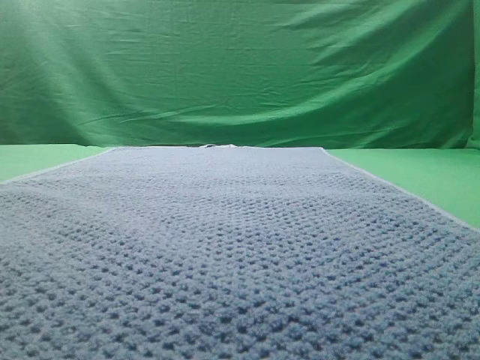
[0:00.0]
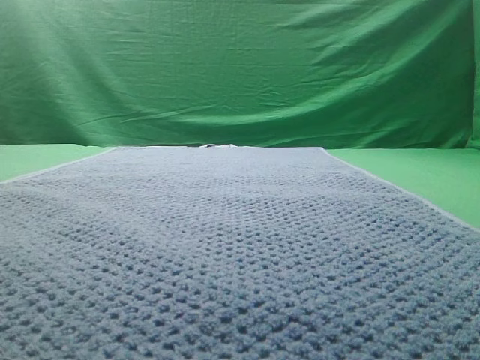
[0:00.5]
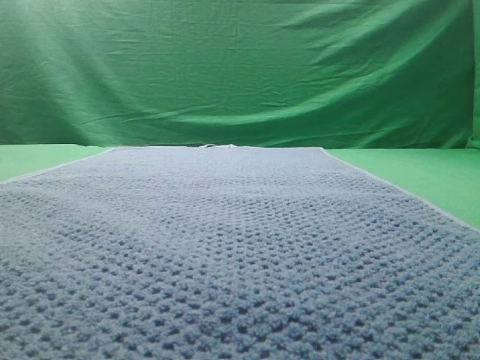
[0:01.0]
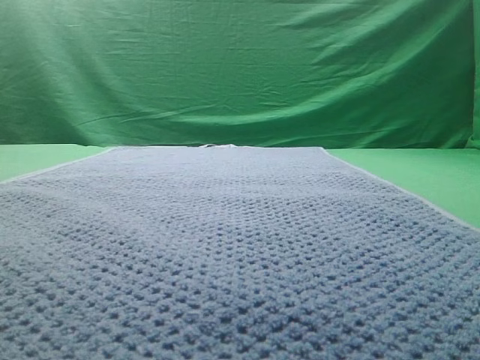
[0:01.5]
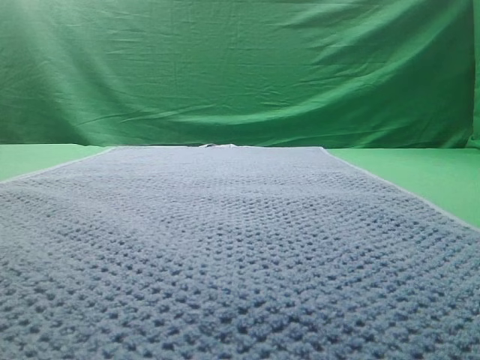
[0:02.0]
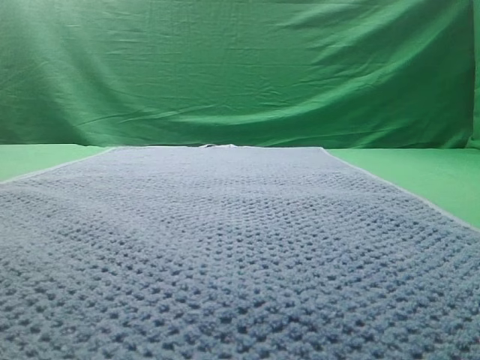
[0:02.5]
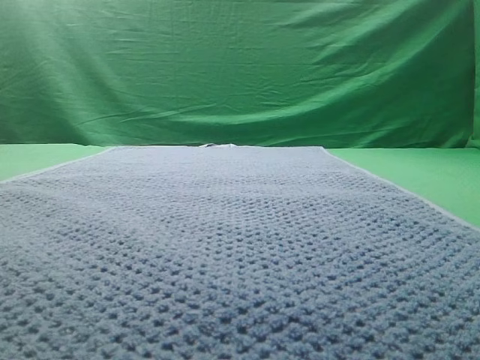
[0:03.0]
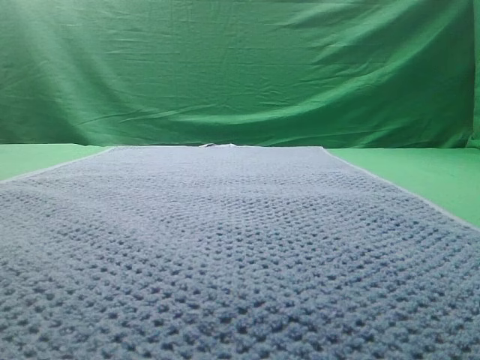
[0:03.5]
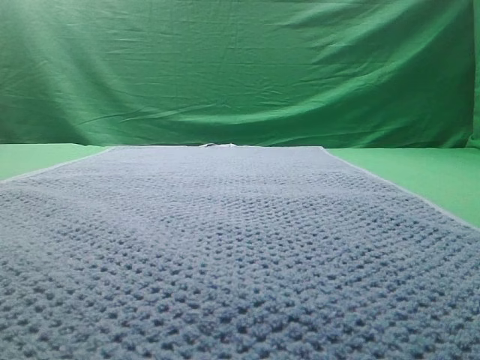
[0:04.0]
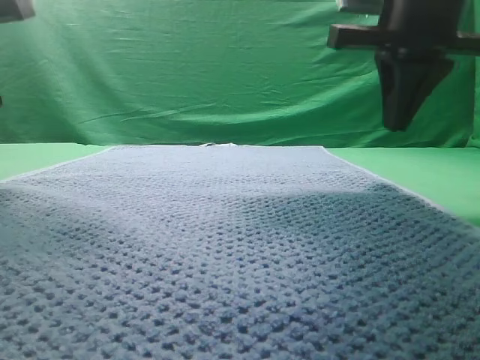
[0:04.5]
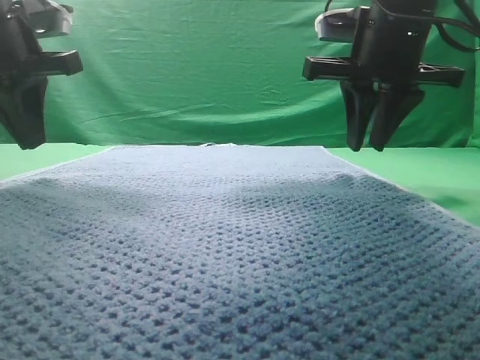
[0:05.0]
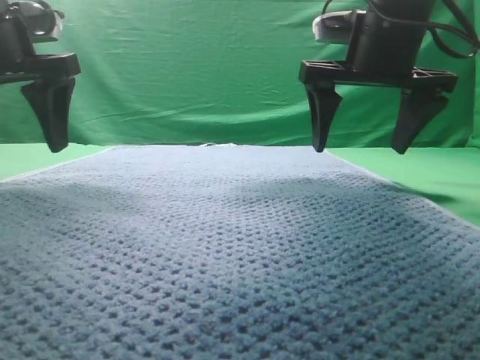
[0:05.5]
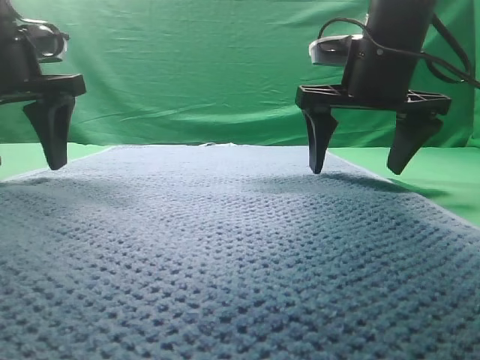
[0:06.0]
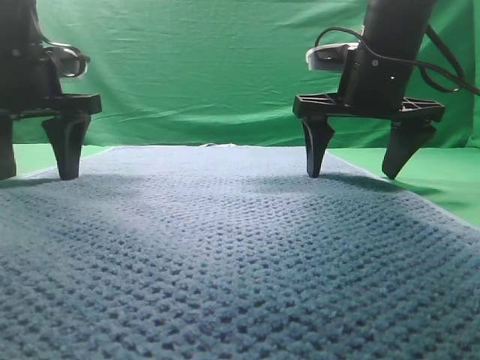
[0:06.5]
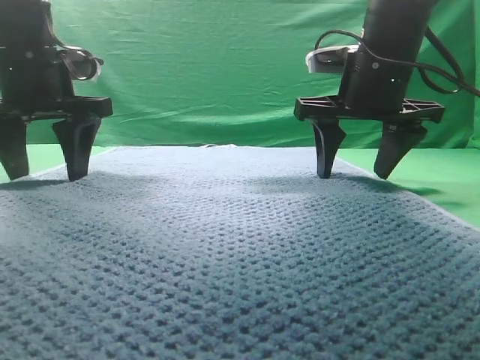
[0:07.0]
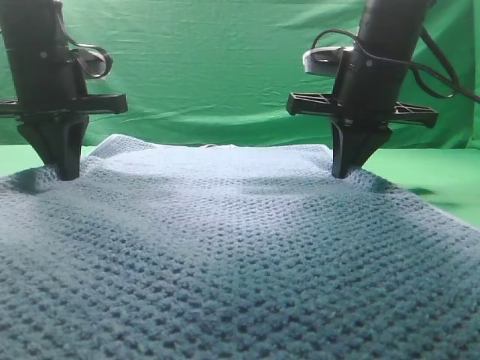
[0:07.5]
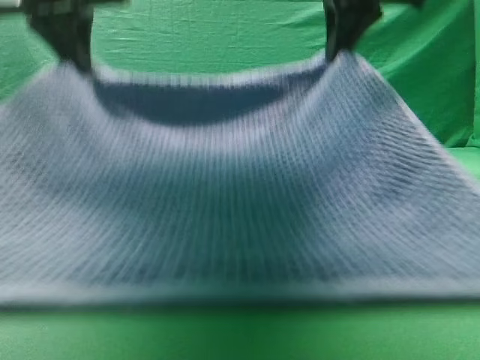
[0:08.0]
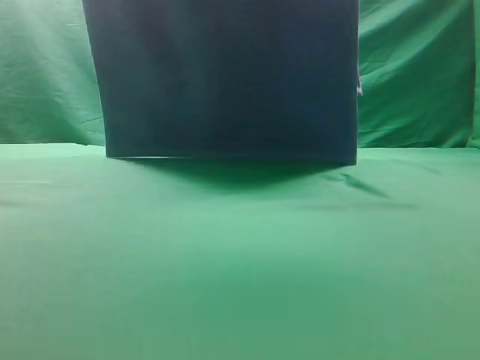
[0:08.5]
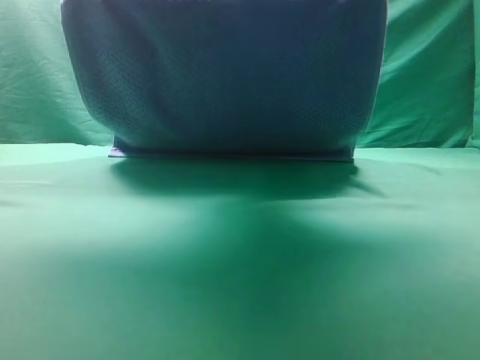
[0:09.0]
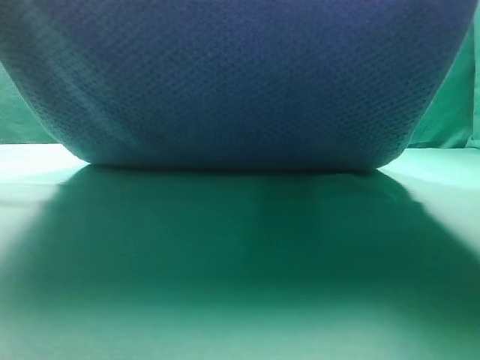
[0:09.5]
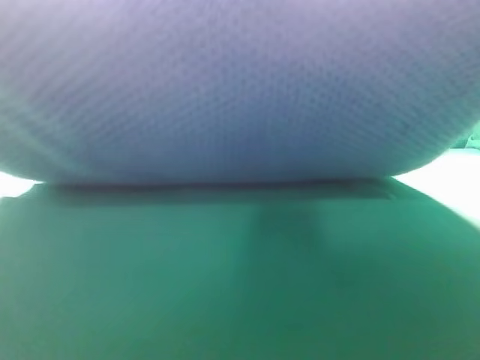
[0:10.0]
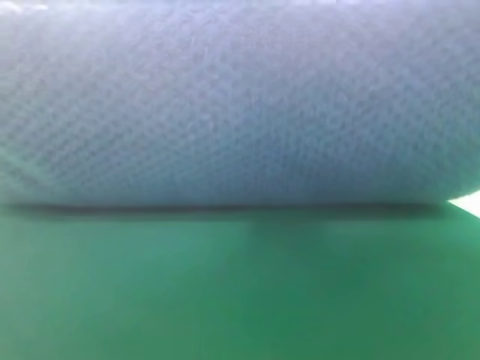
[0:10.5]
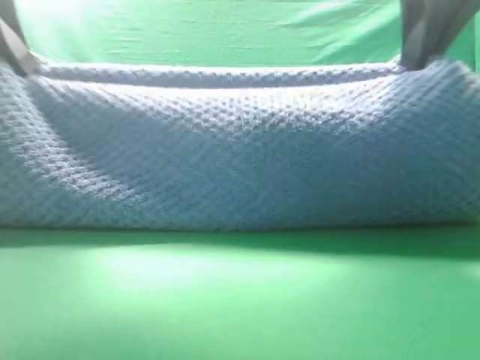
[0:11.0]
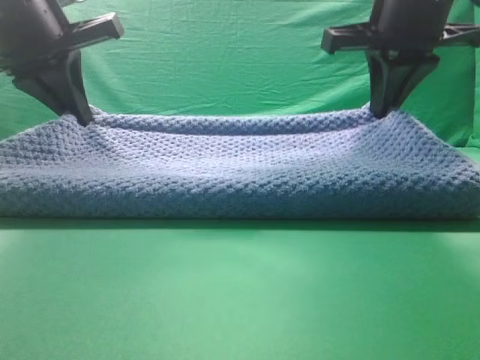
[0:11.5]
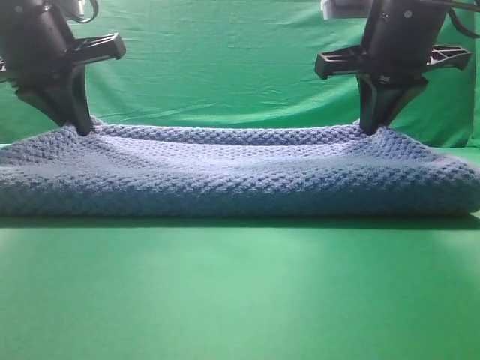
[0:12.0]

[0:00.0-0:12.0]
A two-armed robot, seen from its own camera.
Task of the whole recording: fold the towel on the table twice.
Step, 0:00.0 to 0:08.0: pick up the towel with two arm.

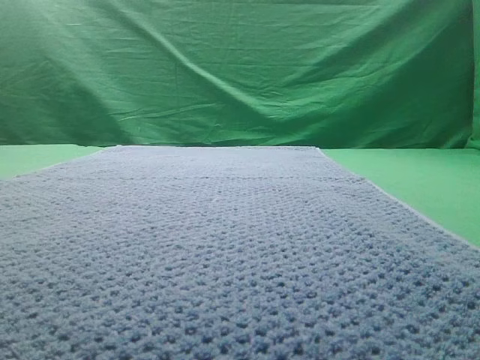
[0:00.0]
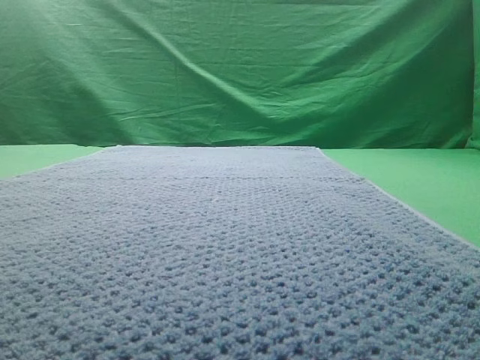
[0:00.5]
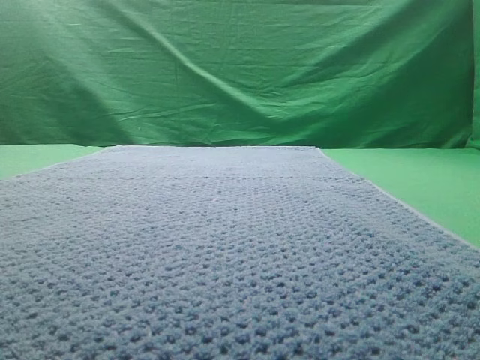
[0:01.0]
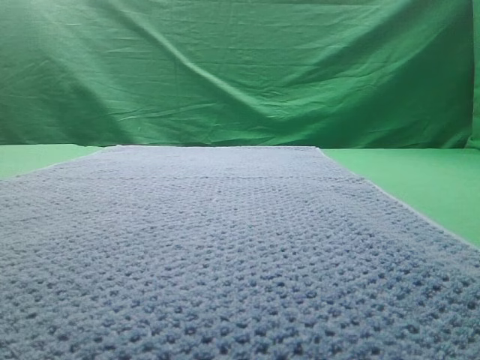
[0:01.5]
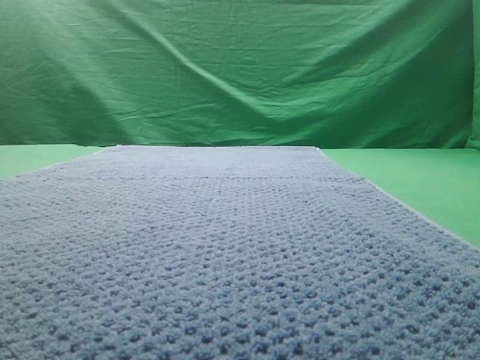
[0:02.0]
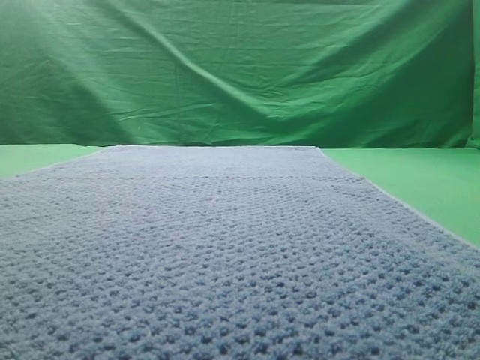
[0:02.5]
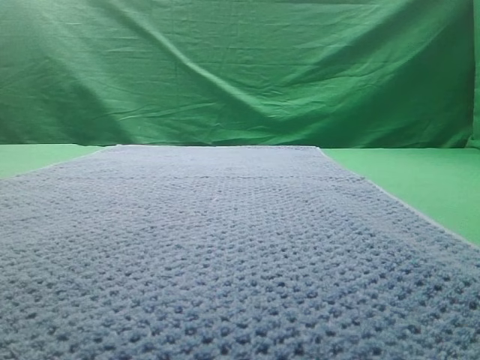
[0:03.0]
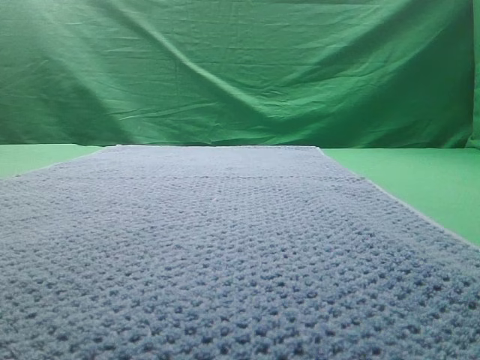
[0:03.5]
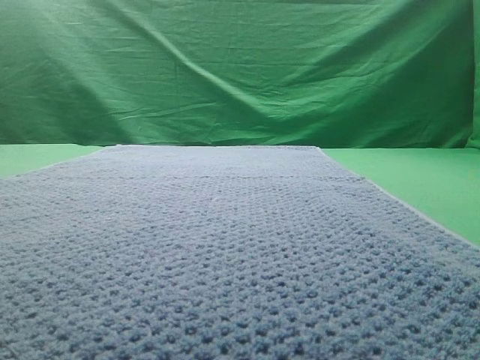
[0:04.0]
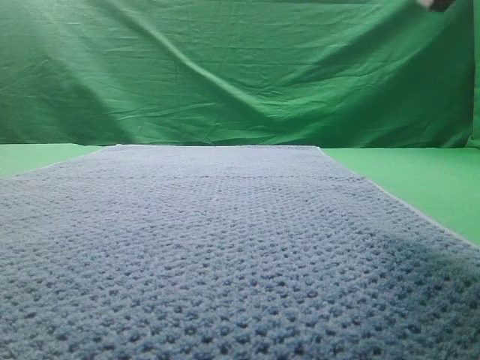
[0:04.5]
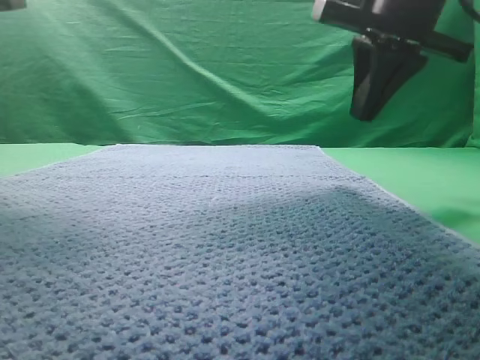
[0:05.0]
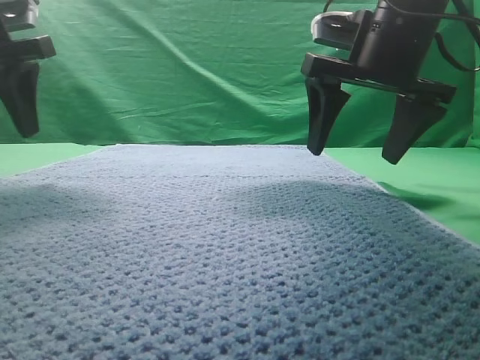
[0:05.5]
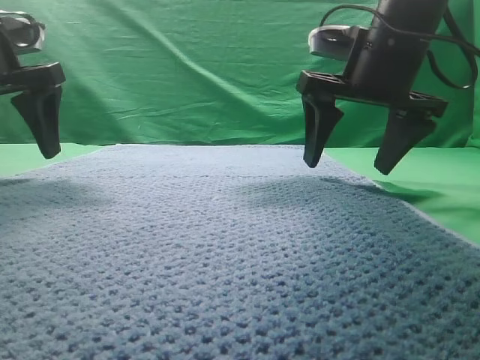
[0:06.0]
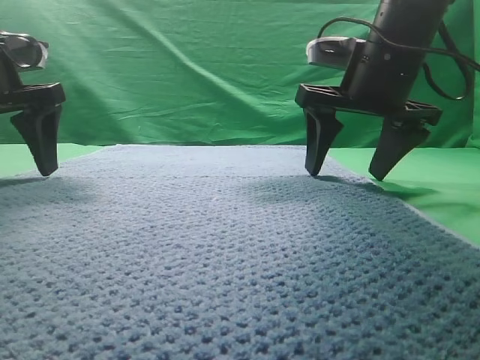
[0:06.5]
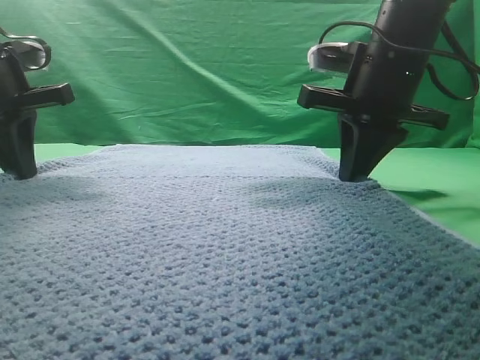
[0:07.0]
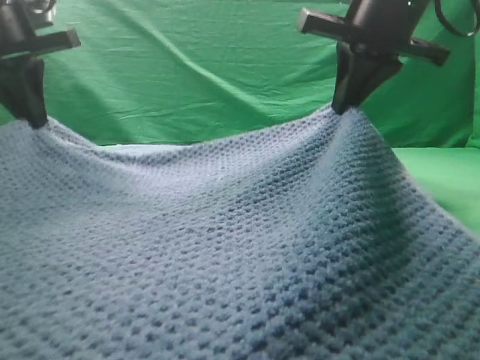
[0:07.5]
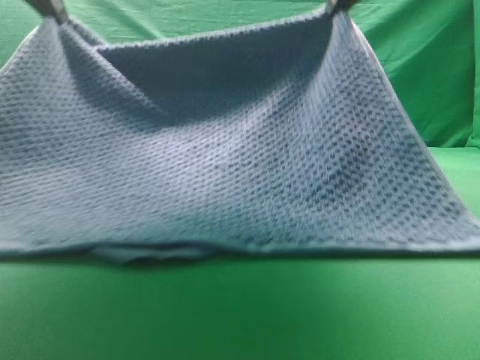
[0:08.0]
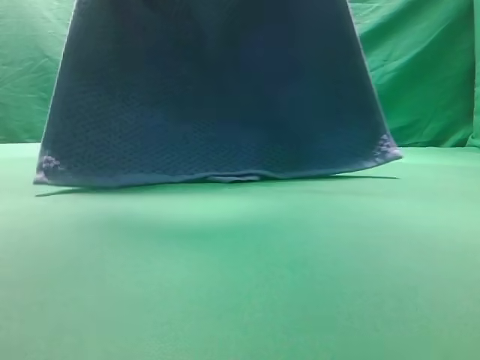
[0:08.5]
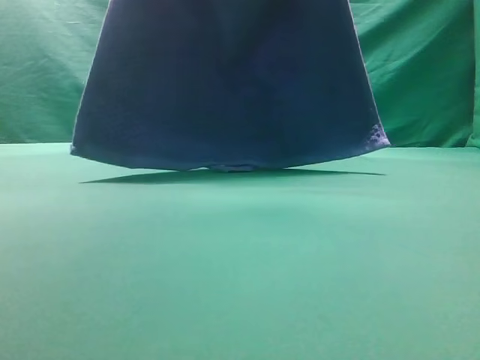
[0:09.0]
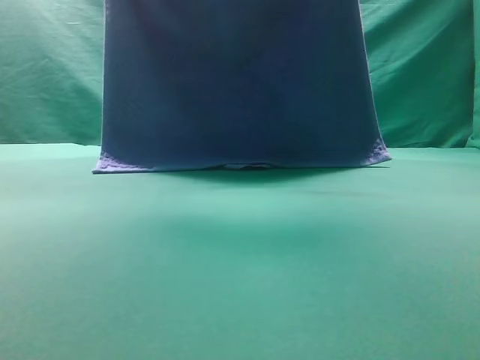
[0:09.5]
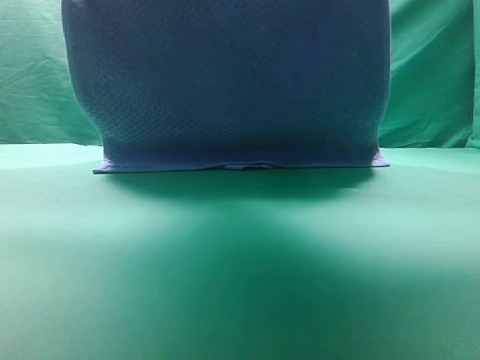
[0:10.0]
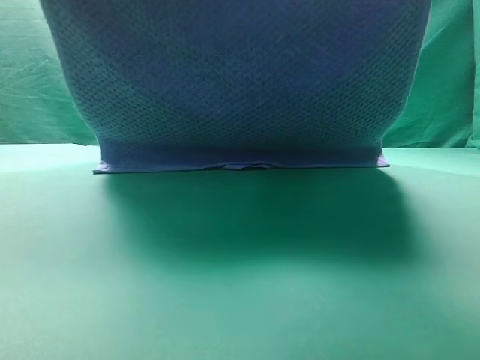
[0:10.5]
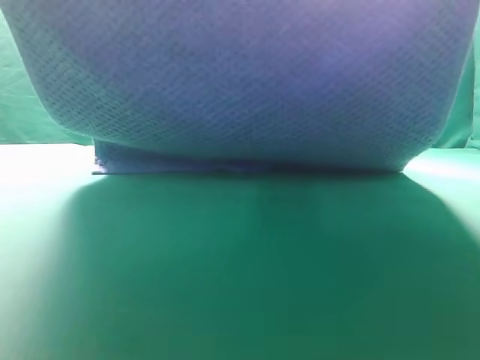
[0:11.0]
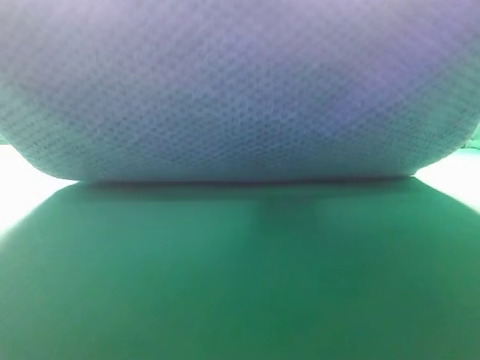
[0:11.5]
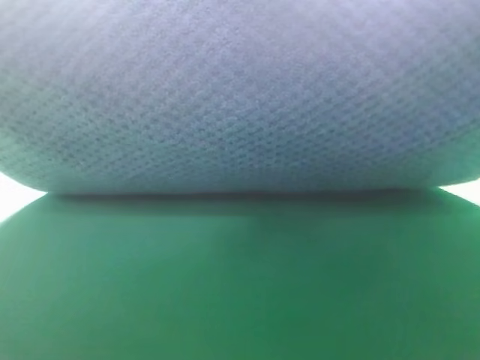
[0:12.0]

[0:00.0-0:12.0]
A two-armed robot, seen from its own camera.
Task of the whole recording: fold the towel on the table twice.
Step, 0:00.0 to 0:08.5: pick up the towel with two arm.

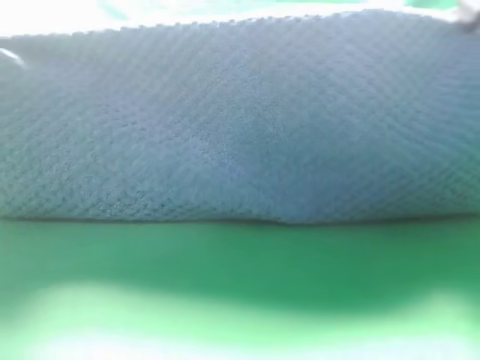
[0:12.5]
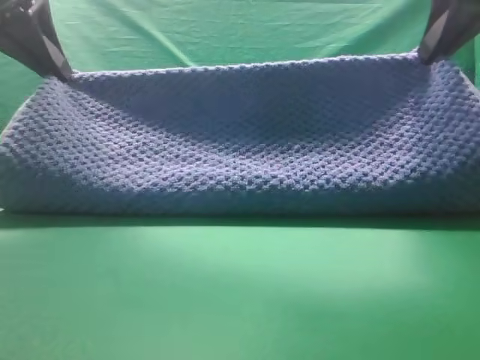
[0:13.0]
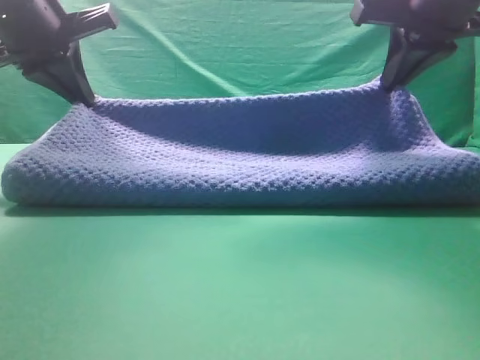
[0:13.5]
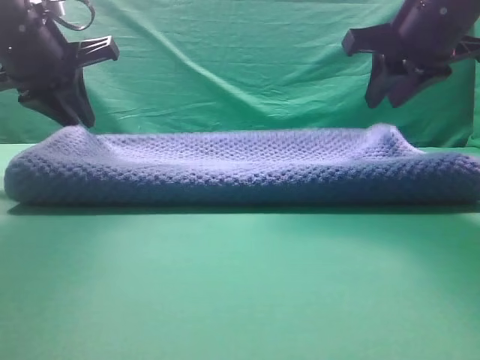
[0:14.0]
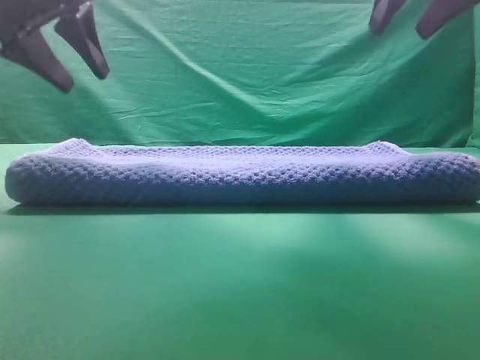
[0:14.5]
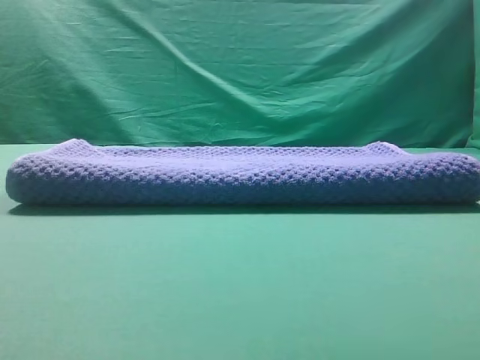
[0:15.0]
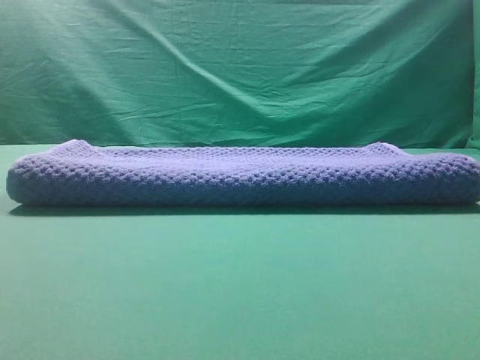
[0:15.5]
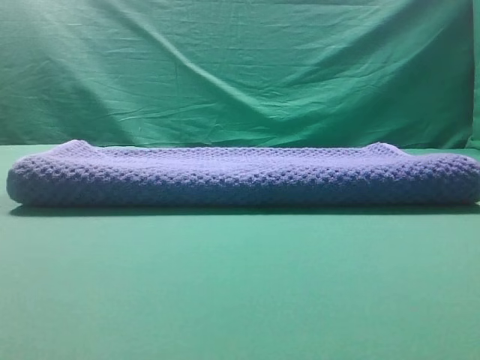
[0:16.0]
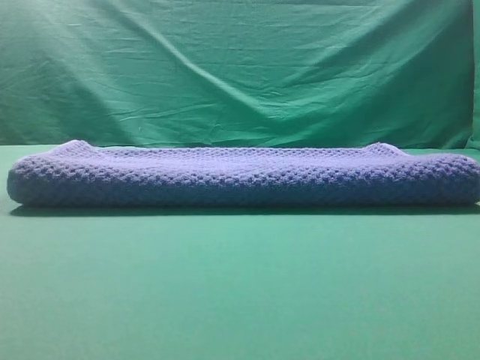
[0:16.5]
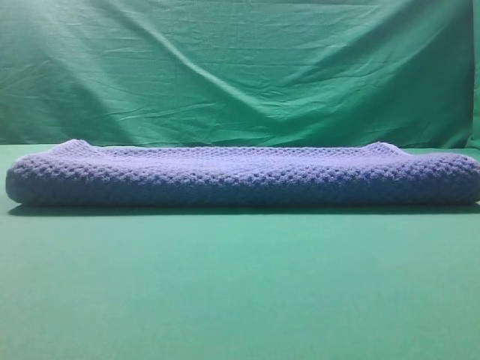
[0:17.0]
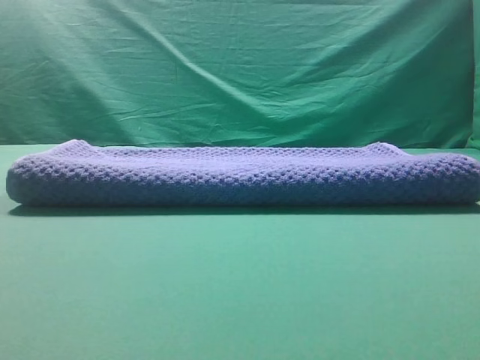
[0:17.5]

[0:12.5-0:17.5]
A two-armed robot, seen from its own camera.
Task of the whole recording: fold the towel on the table twice.
Step, 0:12.5 to 0:14.5: Fold the towel twice on the table.
